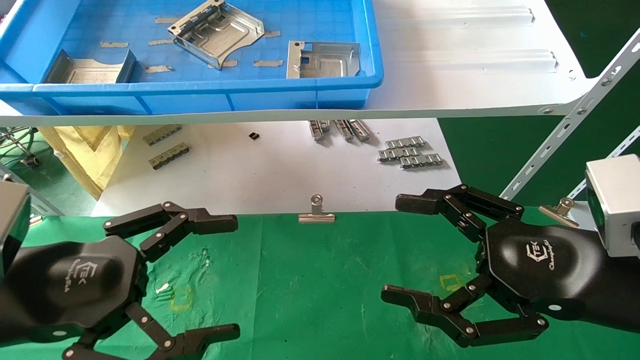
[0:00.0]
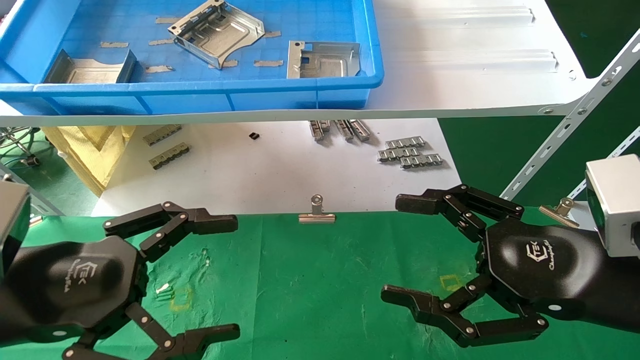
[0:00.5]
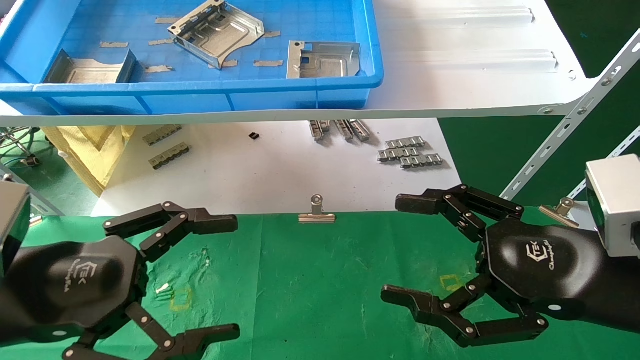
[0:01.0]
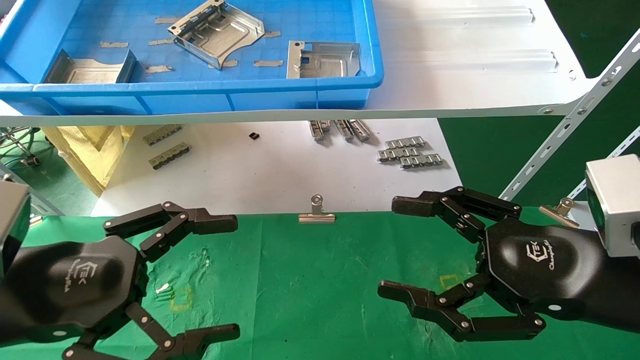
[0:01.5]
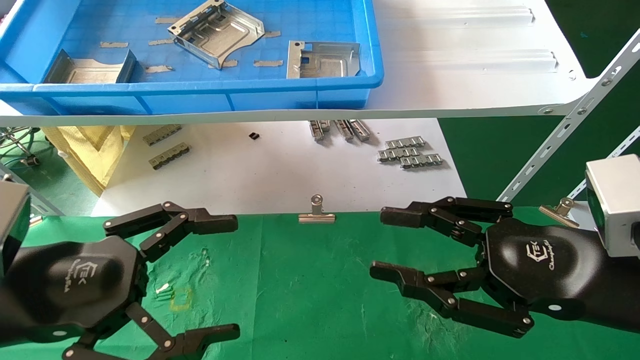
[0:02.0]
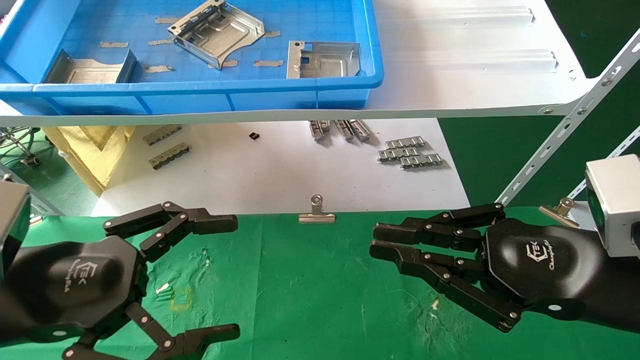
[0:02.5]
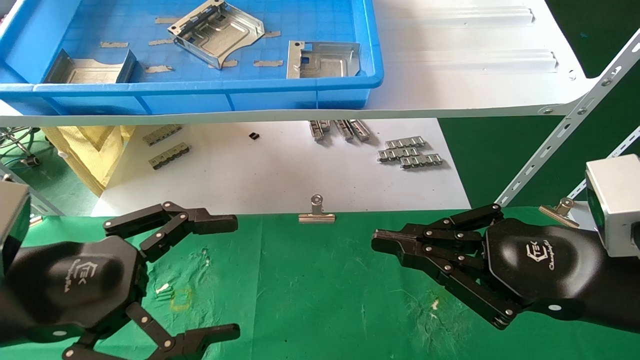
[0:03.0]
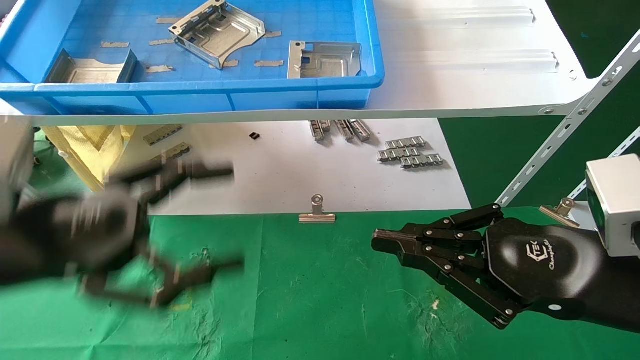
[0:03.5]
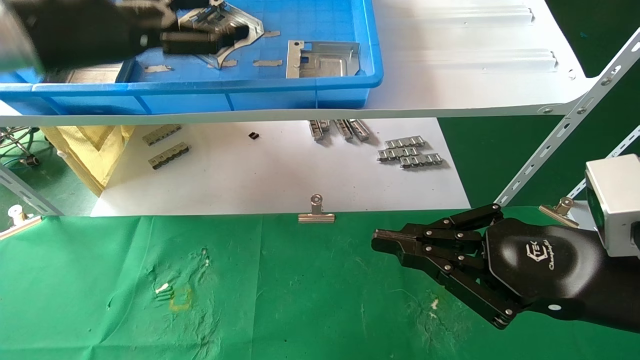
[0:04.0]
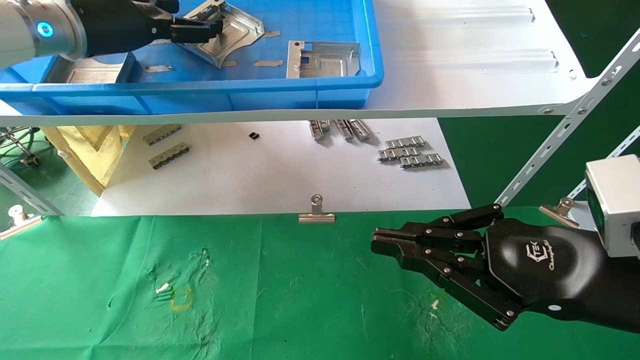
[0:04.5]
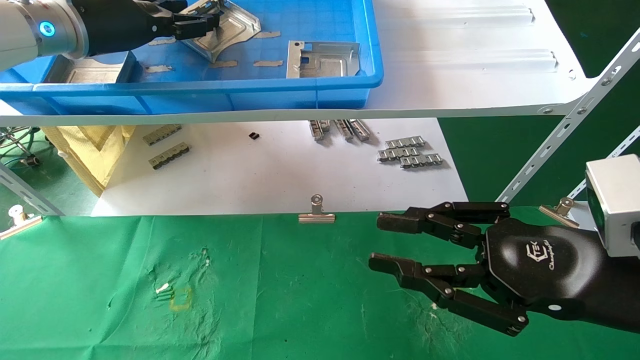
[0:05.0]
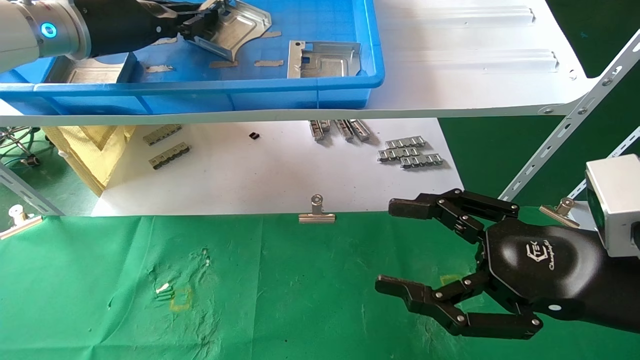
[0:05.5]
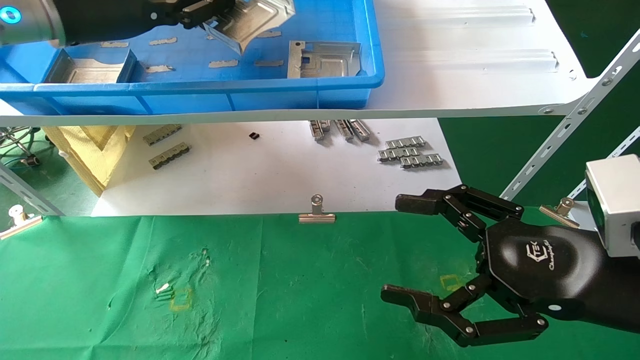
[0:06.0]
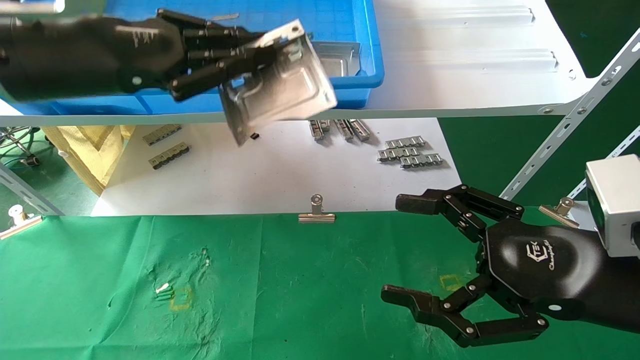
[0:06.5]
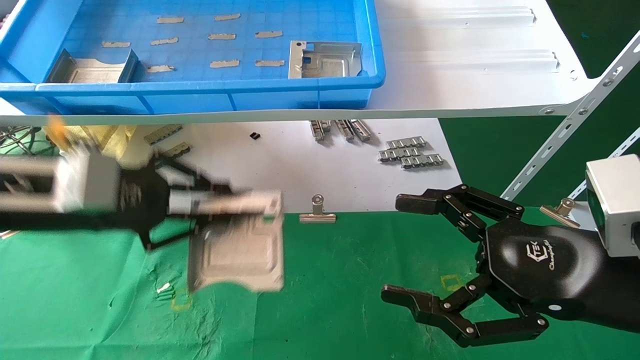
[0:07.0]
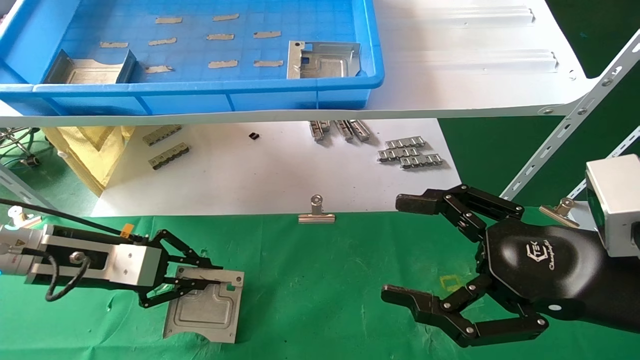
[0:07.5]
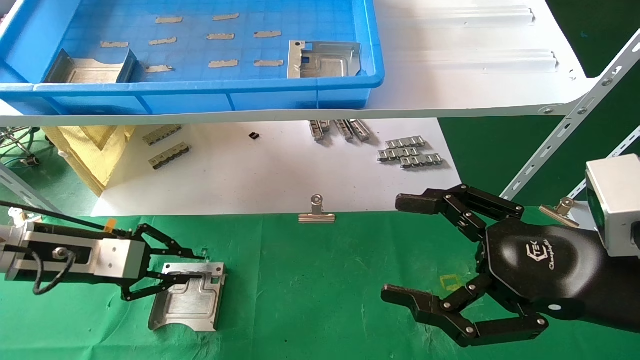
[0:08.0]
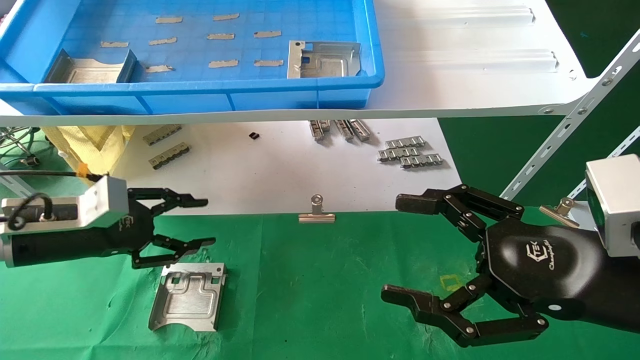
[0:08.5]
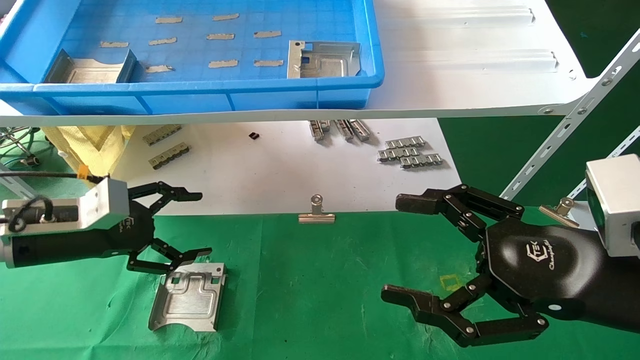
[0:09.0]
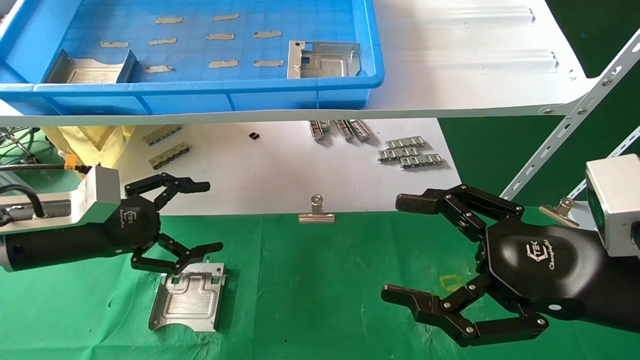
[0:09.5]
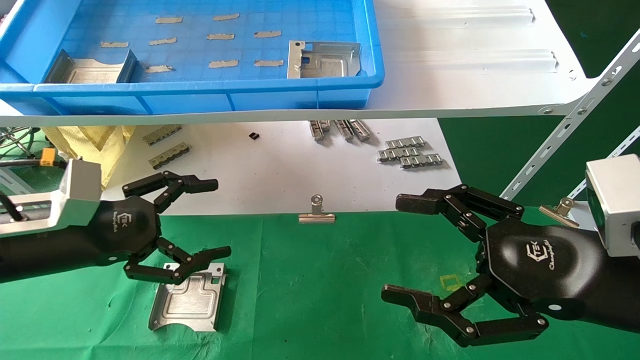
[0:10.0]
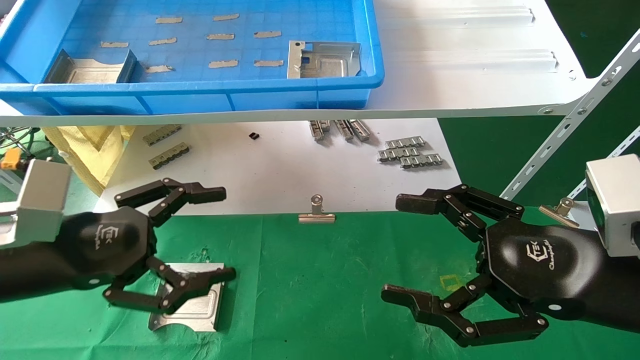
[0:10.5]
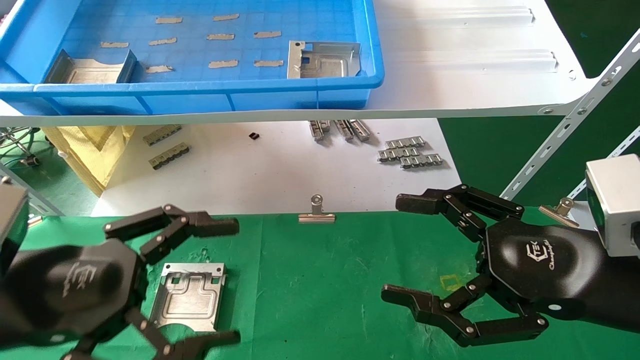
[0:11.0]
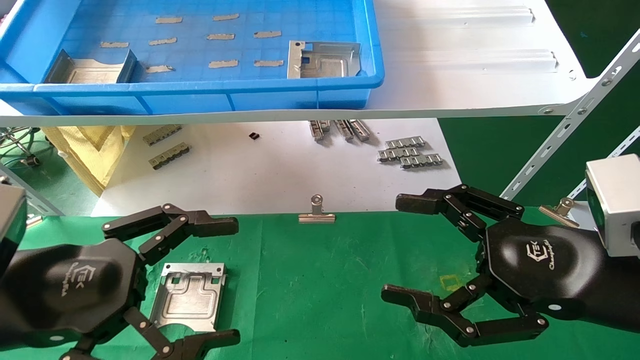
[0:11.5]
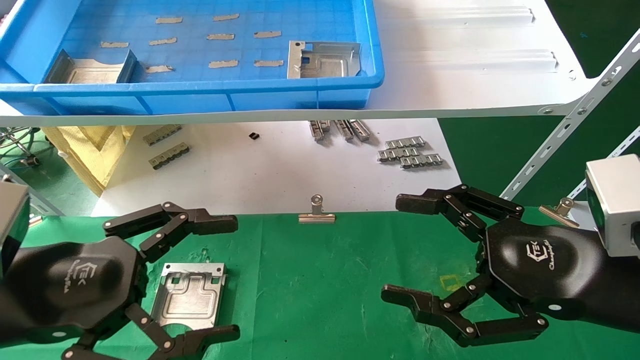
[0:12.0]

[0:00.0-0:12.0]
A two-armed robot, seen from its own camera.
Task of the whole recording: use the mechanical arm to pick up the parts and place them on the table.
Step, 0:04.0 to 0:05.5: Pick up the hard drive bracket from the feeding area.
Step, 0:06.0 to 0:08.0: Place the hard drive bracket into the box.
0:00.0 to 0:02.0: The right gripper closes up.
0:02.0 to 0:04.0: The right gripper closes its fingers. Meanwhile the left gripper moves upward and forward, some 25 cm.
0:04.0 to 0:06.0: The left gripper closes its fingers; the right gripper opens.
0:06.0 to 0:08.0: The left gripper travels downward by roughly 25 cm.
0:08.0 to 0:10.0: The left gripper is displaced backward by about 5 cm, and opens up.
0:10.0 to 0:12.0: The left gripper heads backward, covering about 10 cm.
